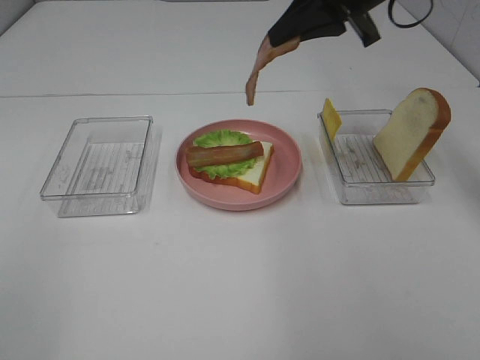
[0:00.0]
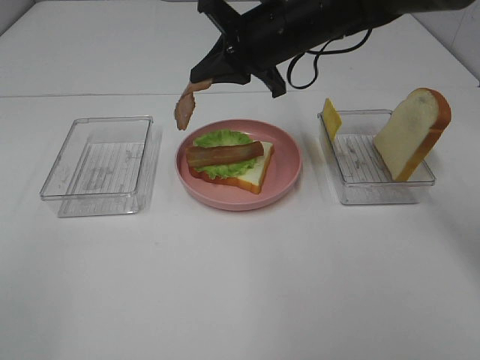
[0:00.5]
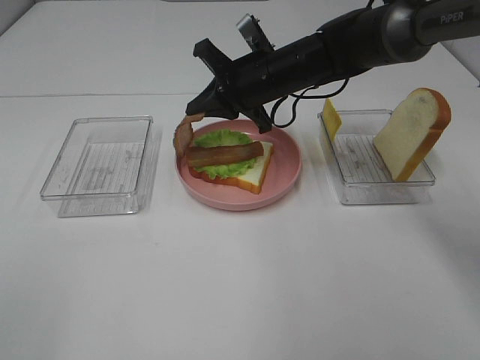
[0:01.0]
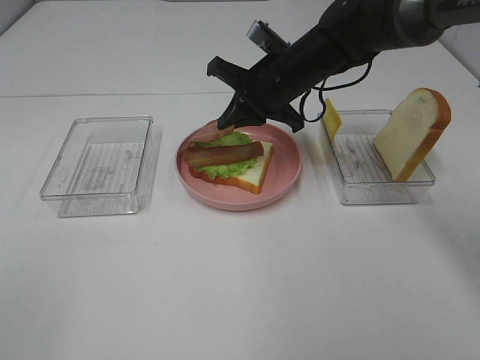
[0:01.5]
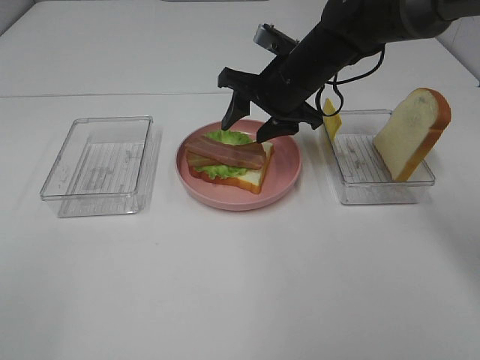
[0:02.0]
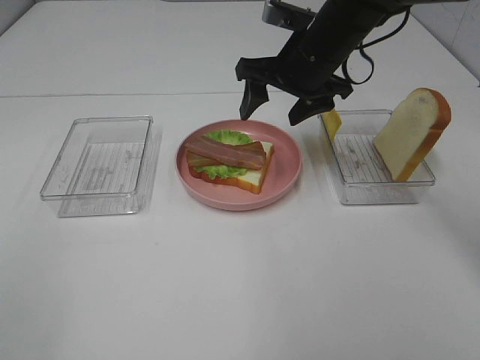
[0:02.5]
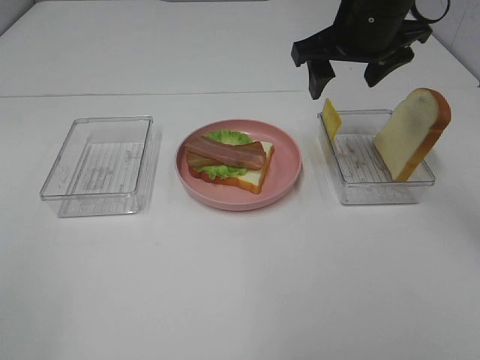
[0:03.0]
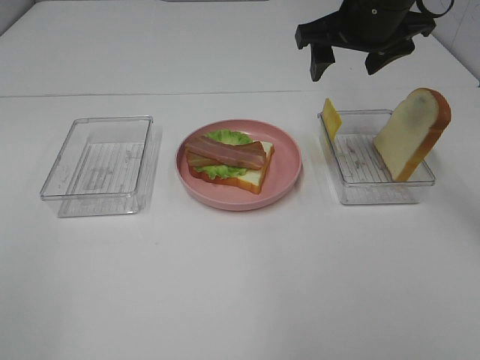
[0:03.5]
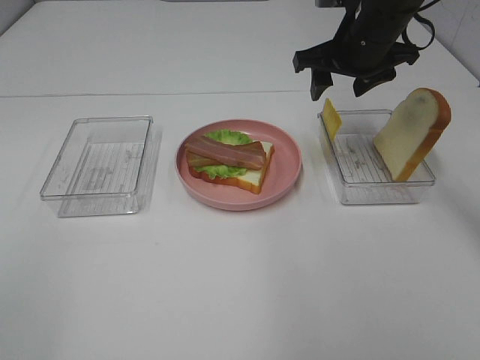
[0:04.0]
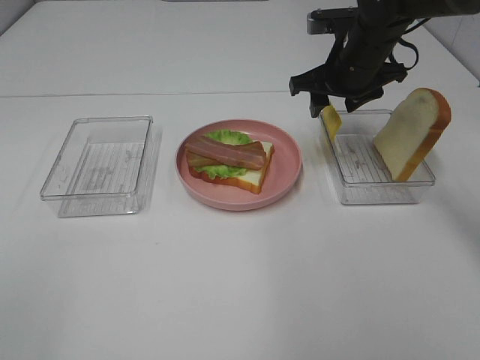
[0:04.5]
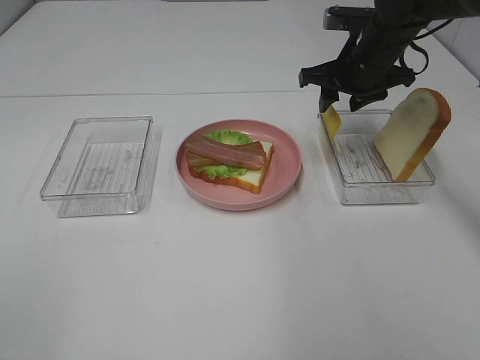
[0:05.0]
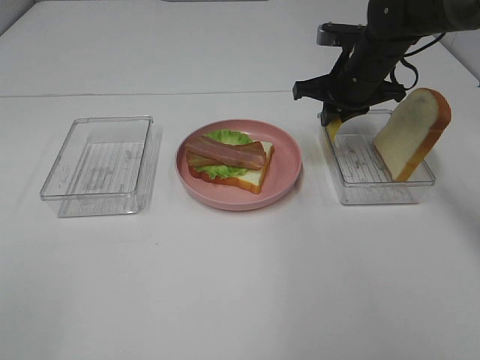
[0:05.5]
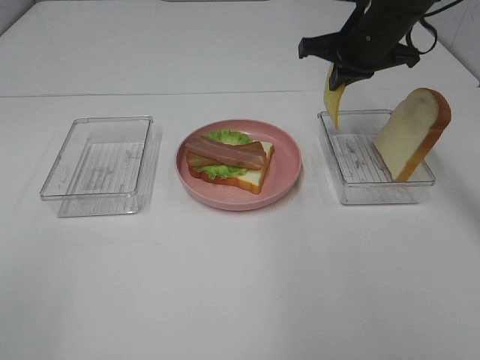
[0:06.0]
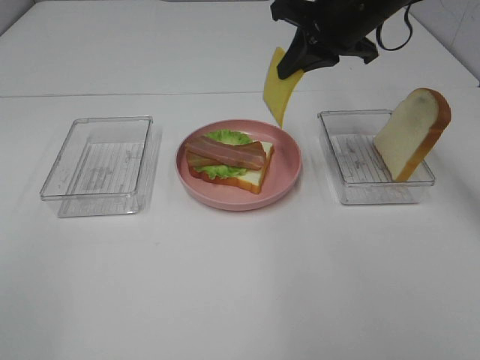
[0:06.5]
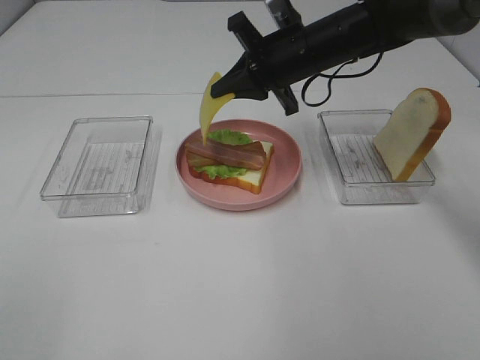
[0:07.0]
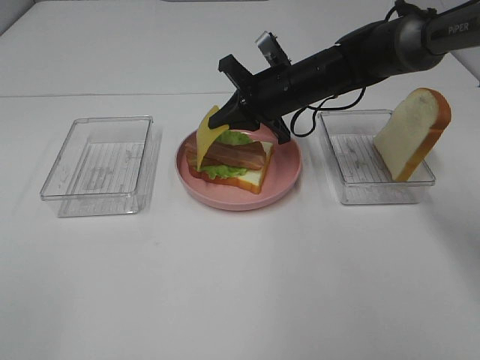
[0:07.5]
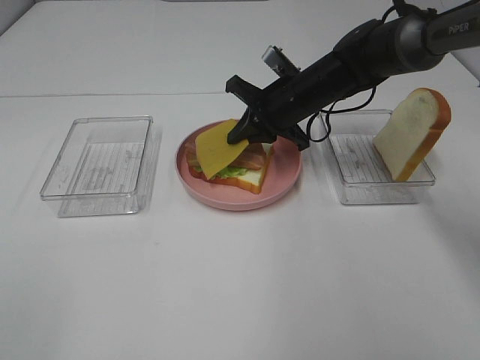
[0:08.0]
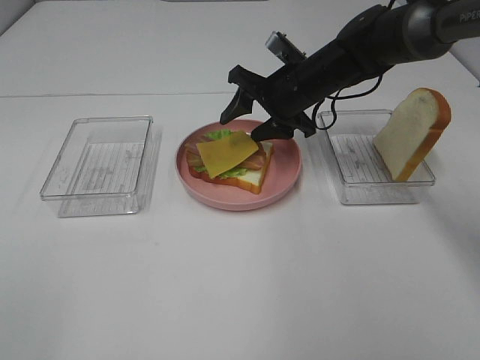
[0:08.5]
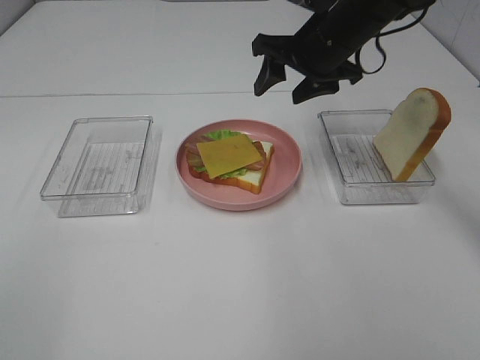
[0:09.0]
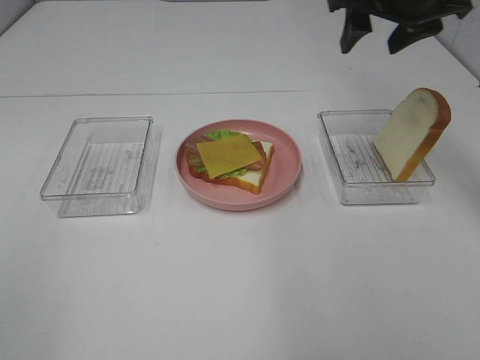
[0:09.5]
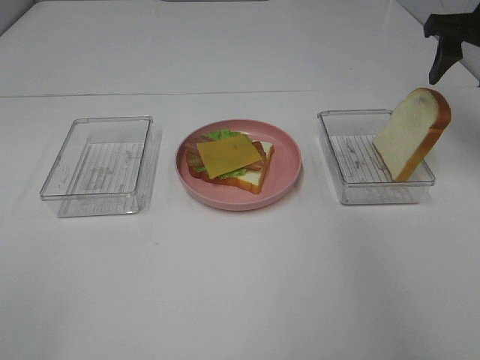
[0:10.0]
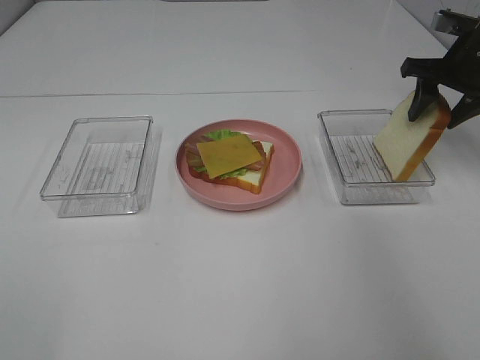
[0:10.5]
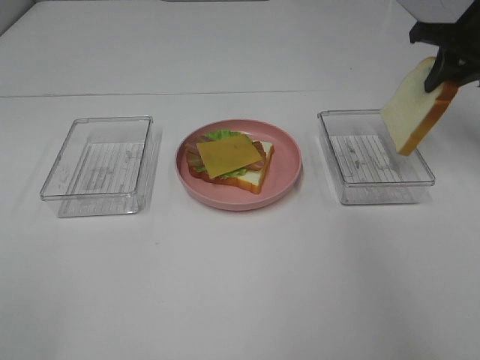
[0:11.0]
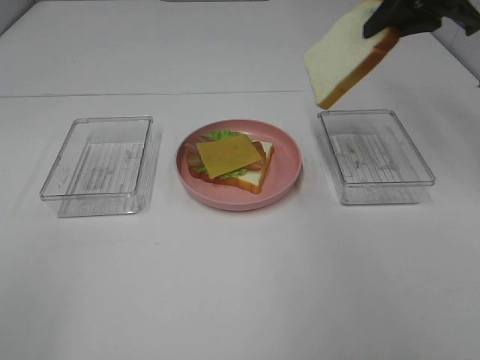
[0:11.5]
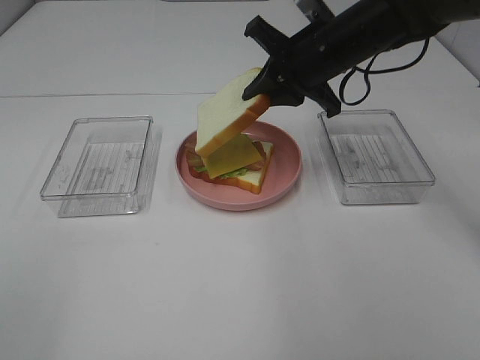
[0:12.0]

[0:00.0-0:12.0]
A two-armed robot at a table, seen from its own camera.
Task of the whole recording: Make sandwiches.
Step, 0:00.0 to 0:02.0: Right hand:place bacon on bacon.
Step, 0:02.5 to 0:05.5: Right hand:grab the cheese slice.
Step, 0:06.0 to 0:08.5: Right hand:place the cheese slice on top of the bacon.
Step, 0:09.0 to 0:10.5: Right hand:grab the bread slice.
0:00.0 to 0:02.0: The right gripper goes about 15 cm downward and to the left, and opens its fingers.
0:02.0 to 0:04.0: The right gripper moves to the right and upward, some 10 cm.
0:04.0 to 0:06.0: The right gripper closes up.
0:06.0 to 0:08.0: The right gripper shifts about 15 cm downward and to the left.
0:08.0 to 0:10.0: The right gripper shifts roughly 25 cm to the right and upward, and opens.
0:10.0 to 0:12.0: The right gripper moves to the left, about 20 cm, and closes its fingers.

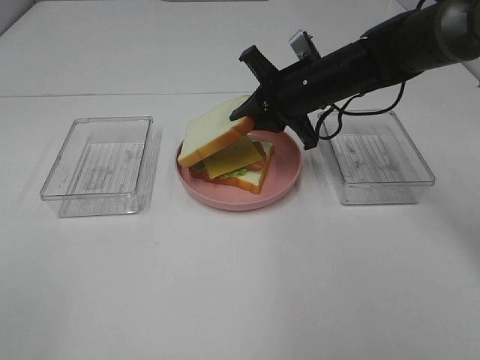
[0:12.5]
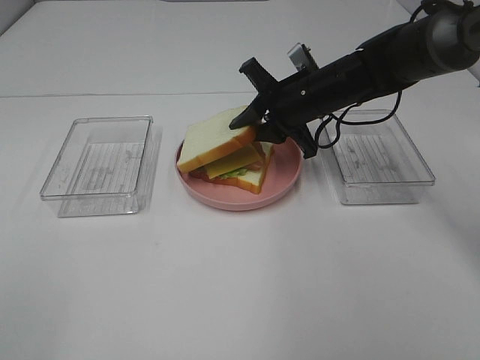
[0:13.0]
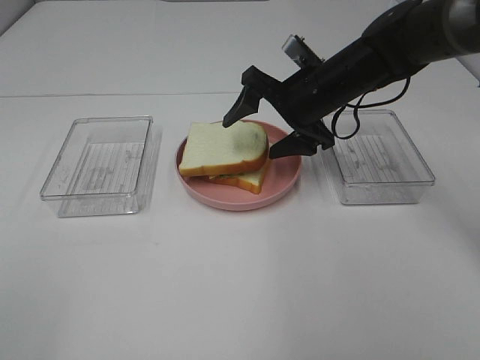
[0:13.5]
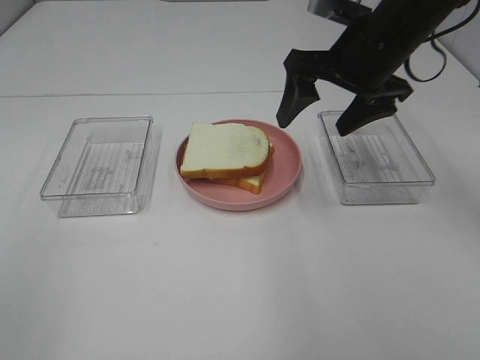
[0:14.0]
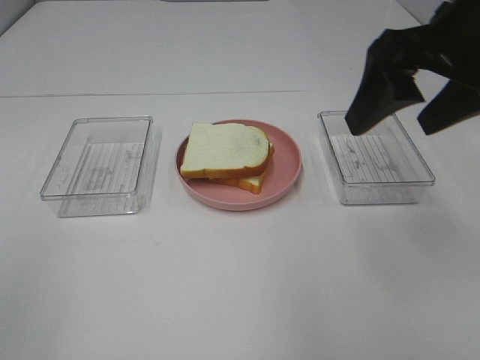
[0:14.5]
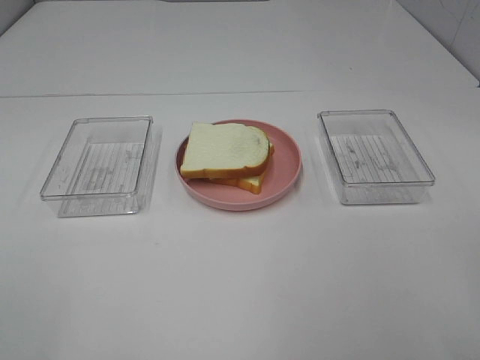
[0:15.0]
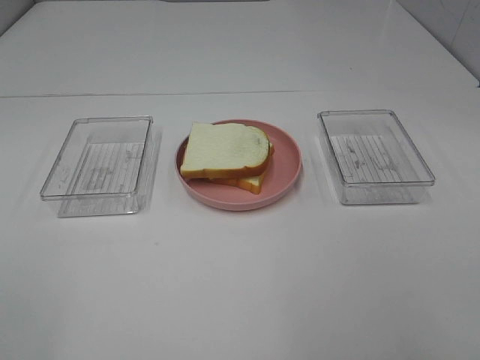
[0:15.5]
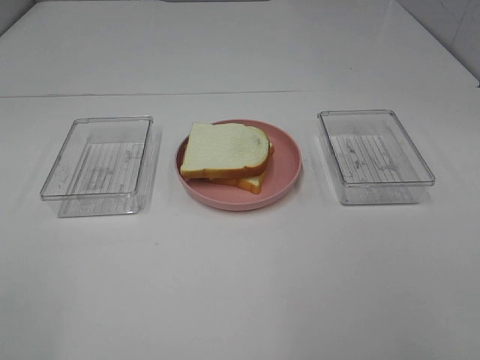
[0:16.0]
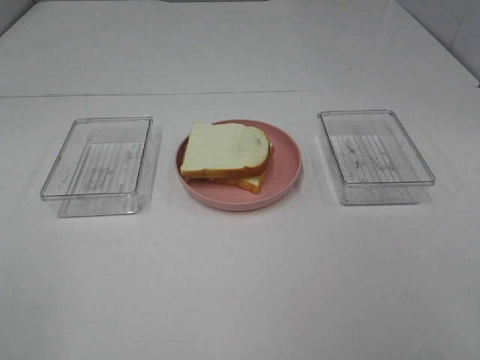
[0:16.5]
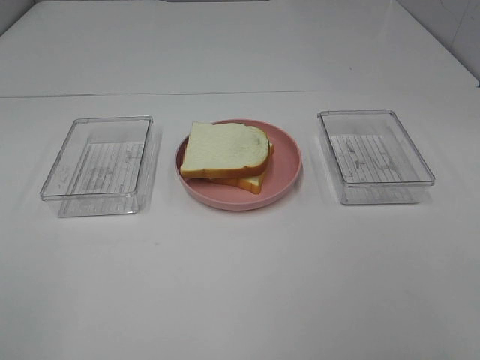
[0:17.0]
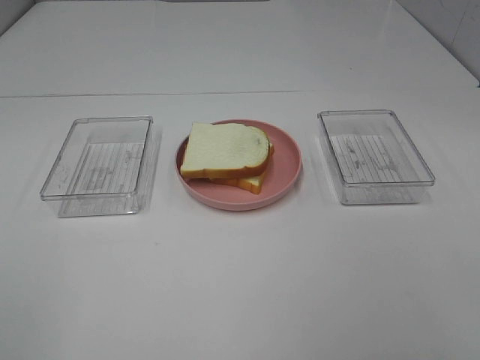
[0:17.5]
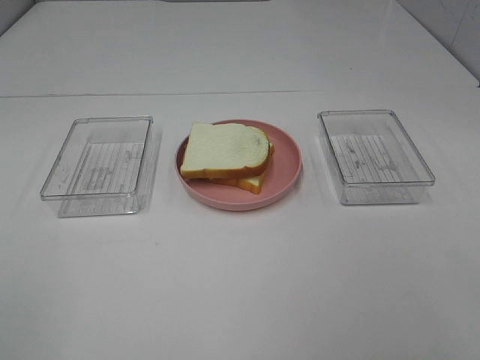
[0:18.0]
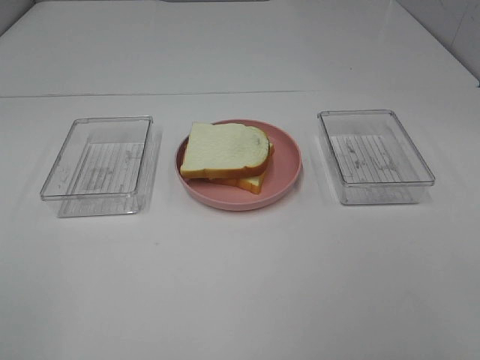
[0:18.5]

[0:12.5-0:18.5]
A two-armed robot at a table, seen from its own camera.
Task of the whole recording: Make sandwiches.
0:12.5 to 0:14.5: The right gripper travels backward, upward and to the right by about 25 cm, and opens.
0:14.5 to 0:16.5: The right gripper travels backward by about 25 cm.

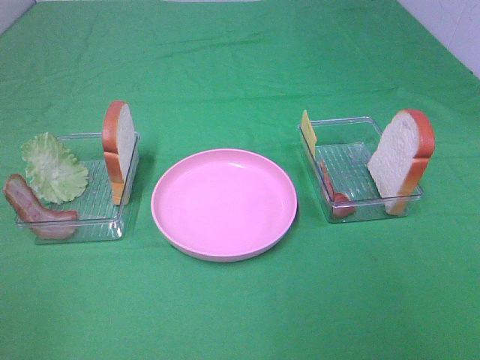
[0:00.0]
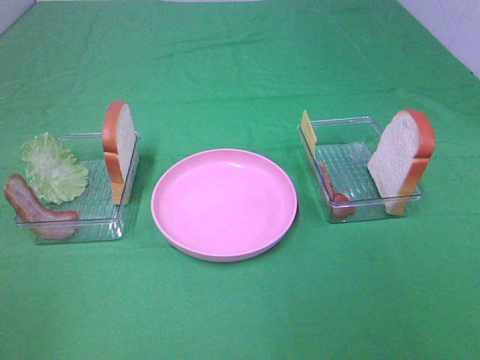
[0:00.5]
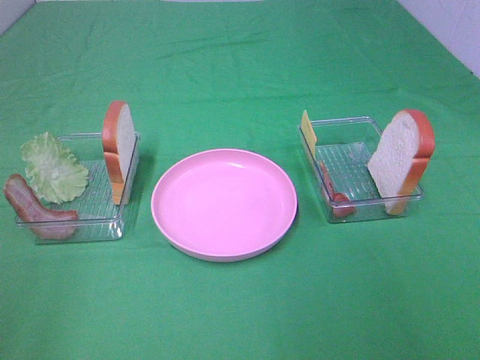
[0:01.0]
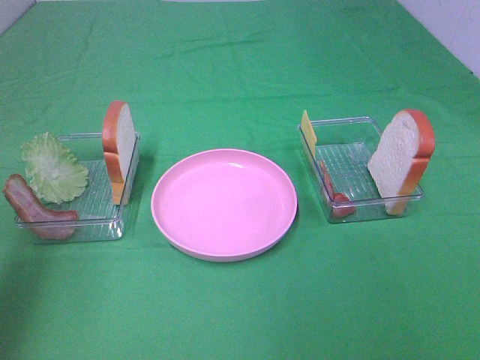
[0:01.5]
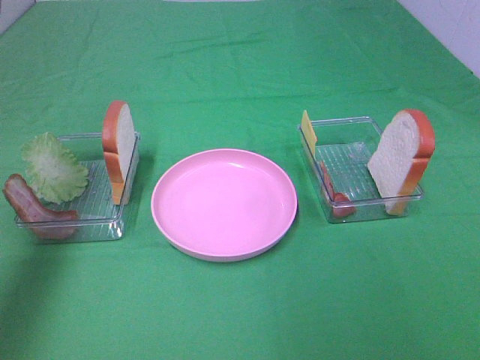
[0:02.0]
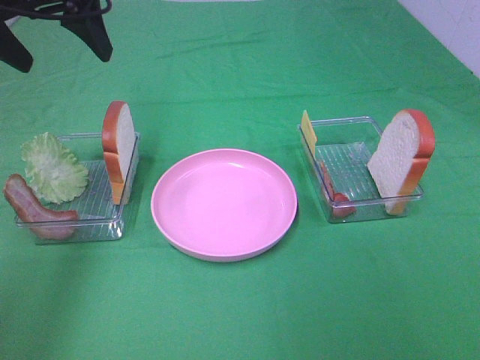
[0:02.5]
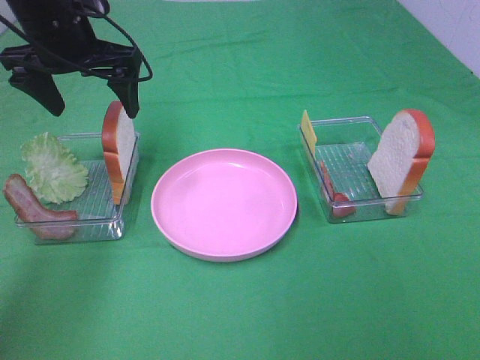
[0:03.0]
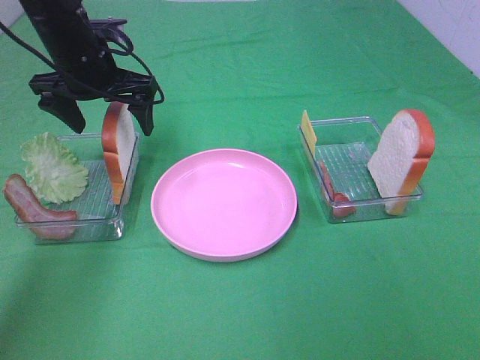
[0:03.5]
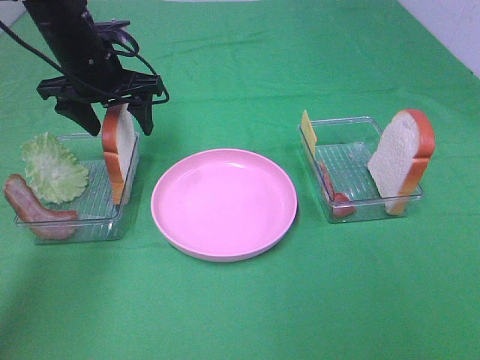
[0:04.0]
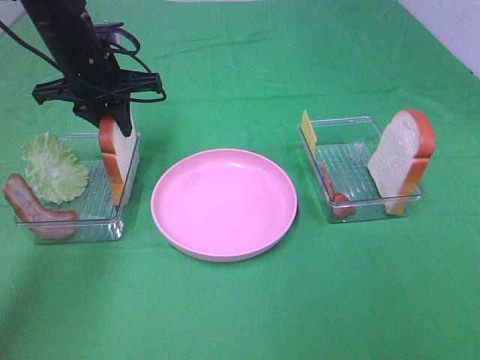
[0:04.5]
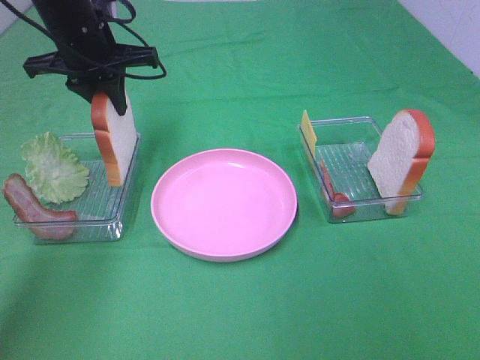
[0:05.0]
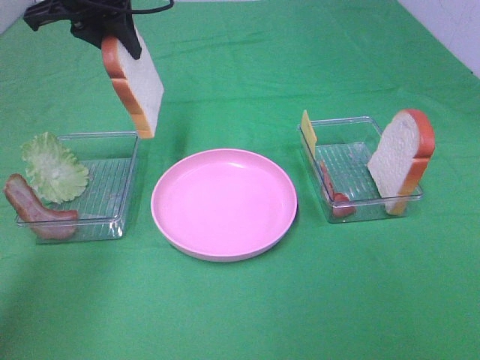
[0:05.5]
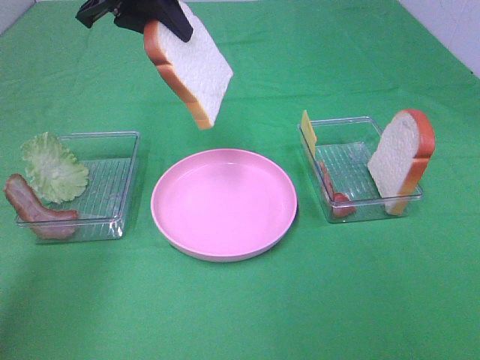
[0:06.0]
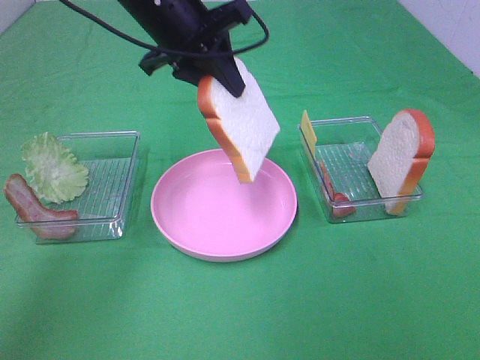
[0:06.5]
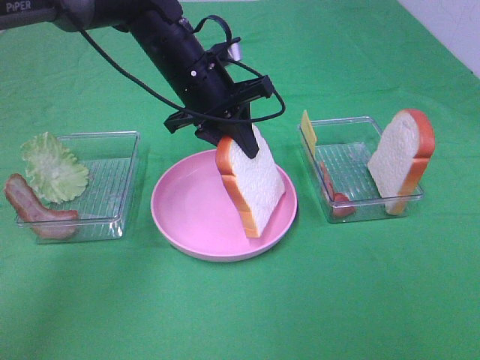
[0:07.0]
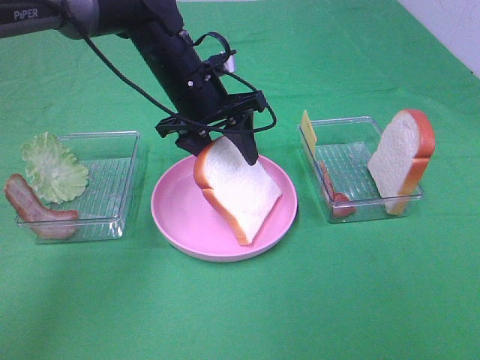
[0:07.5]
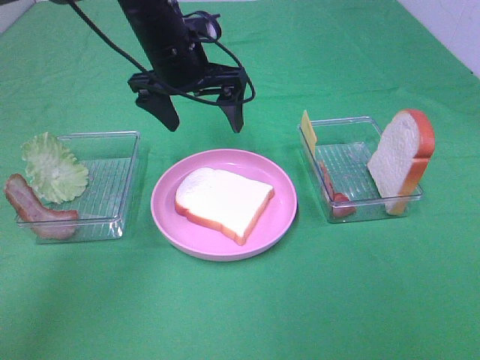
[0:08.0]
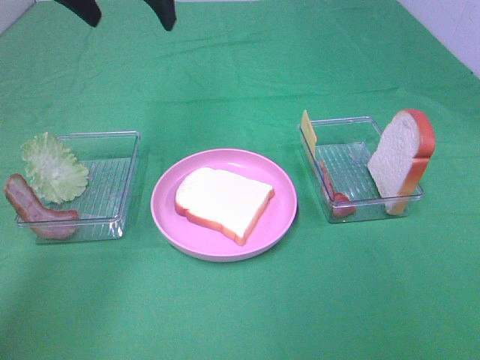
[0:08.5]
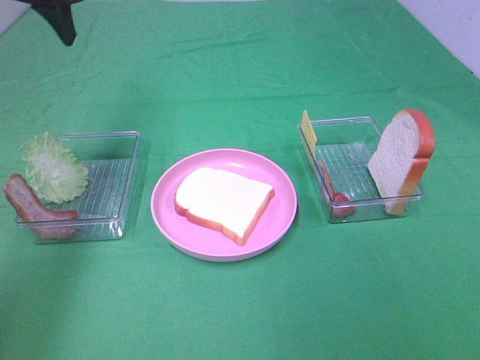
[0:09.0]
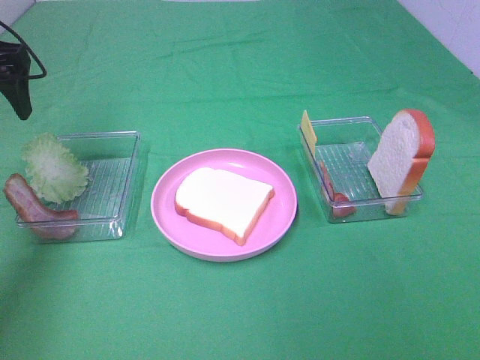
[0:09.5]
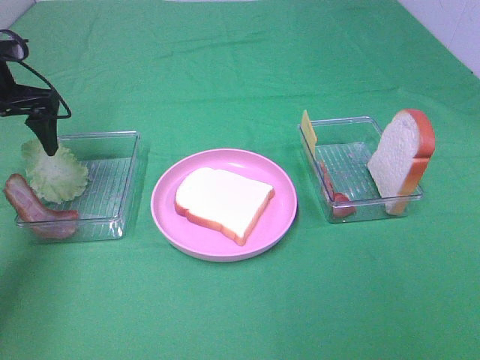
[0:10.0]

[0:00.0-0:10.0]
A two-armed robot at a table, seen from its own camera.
Task of the whole recording: Make sandwiches.
Step, 0:00.0 to 0:04.5: Left hand:grab the bread slice.
Step, 0:05.0 to 0:07.5: Left hand:place the bread slice on the plate.
0:00.0 to 0:02.0: The left gripper shifts some 30 cm forward.
0:02.0 to 0:04.0: The left gripper heads downward, forward and to the right, covering about 25 cm.
0:04.0 to 0:06.0: The left gripper shifts approximately 10 cm upward, and closes.
0:06.0 to 0:08.0: The left gripper moves downward and to the right, approximately 10 cm, and opens its fingers.
0:08.0 to 0:10.0: The left gripper travels to the left by about 25 cm.
